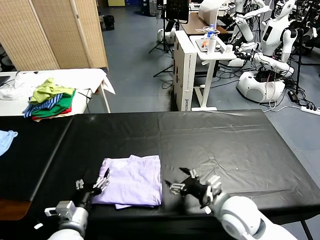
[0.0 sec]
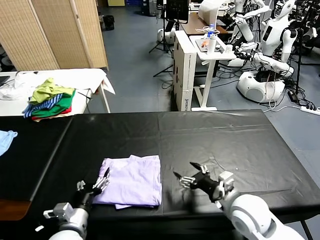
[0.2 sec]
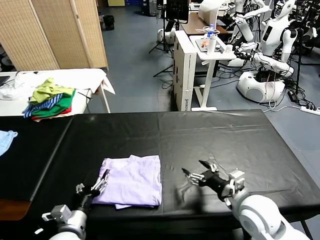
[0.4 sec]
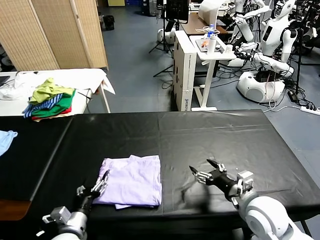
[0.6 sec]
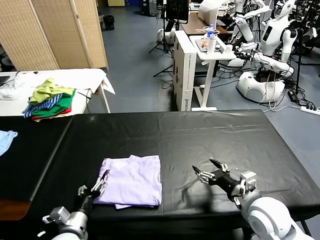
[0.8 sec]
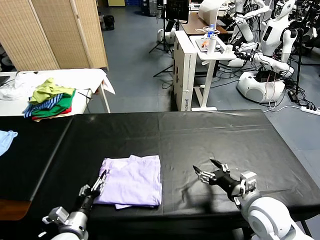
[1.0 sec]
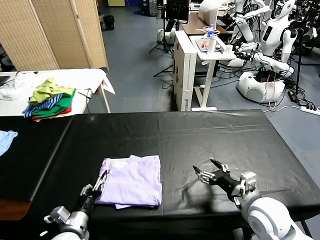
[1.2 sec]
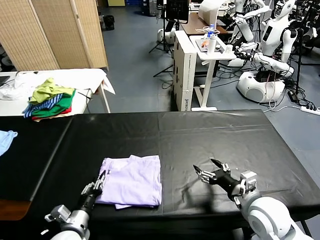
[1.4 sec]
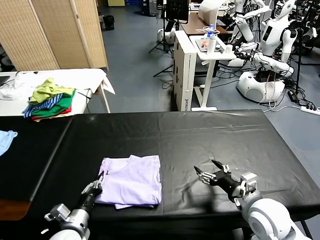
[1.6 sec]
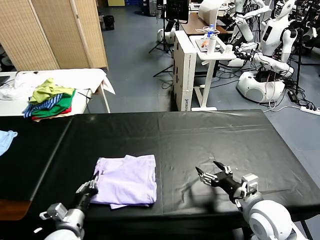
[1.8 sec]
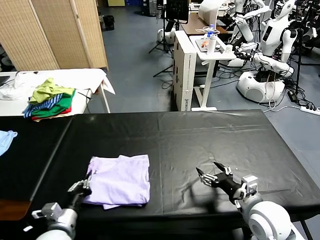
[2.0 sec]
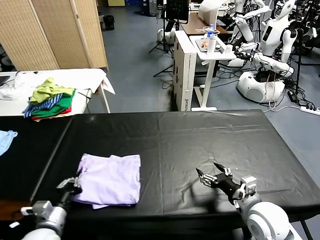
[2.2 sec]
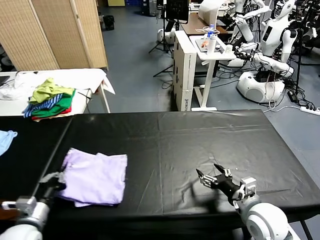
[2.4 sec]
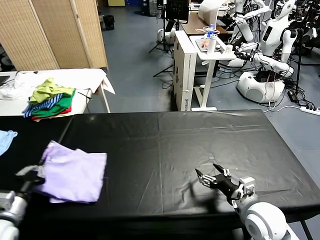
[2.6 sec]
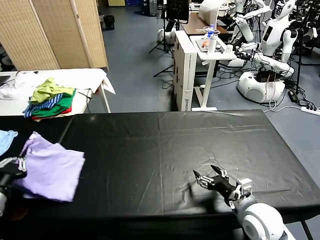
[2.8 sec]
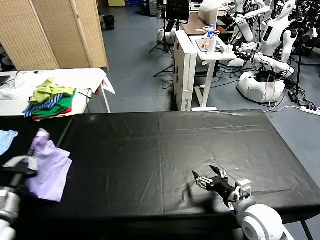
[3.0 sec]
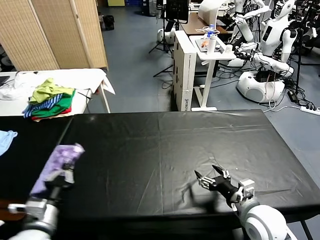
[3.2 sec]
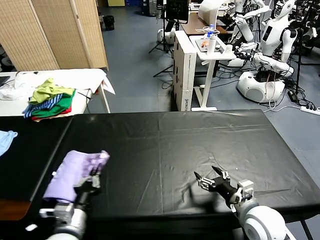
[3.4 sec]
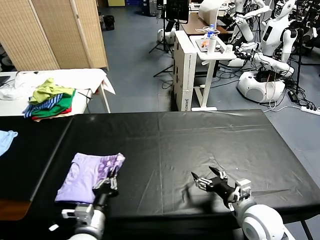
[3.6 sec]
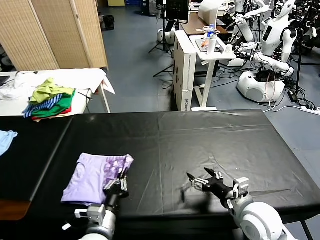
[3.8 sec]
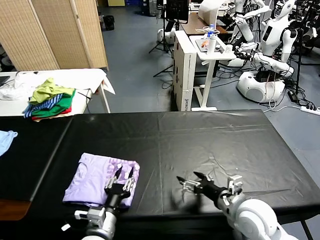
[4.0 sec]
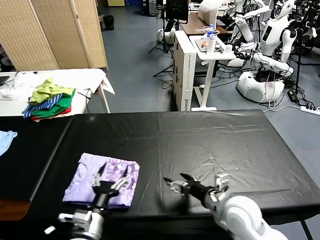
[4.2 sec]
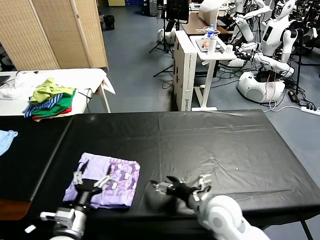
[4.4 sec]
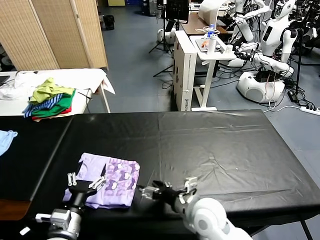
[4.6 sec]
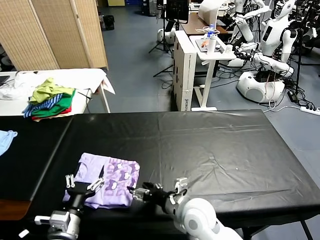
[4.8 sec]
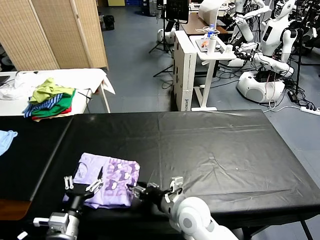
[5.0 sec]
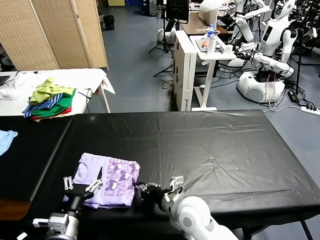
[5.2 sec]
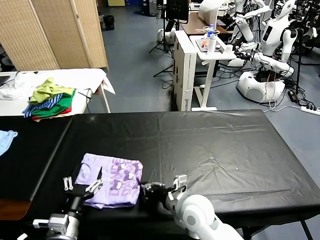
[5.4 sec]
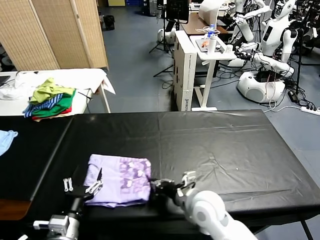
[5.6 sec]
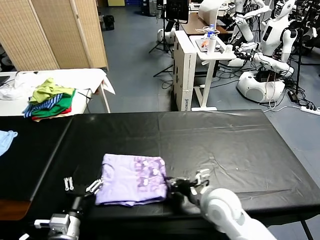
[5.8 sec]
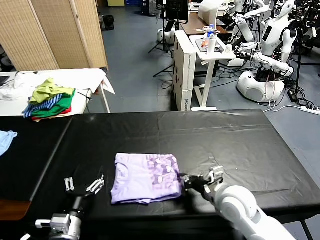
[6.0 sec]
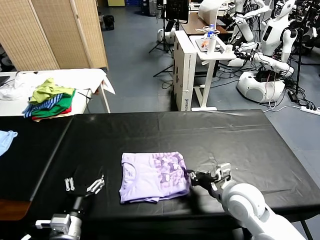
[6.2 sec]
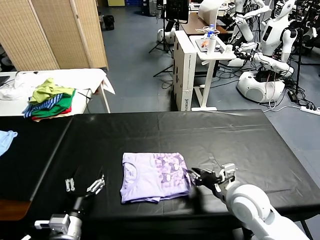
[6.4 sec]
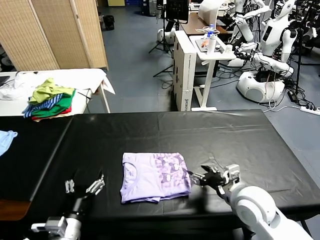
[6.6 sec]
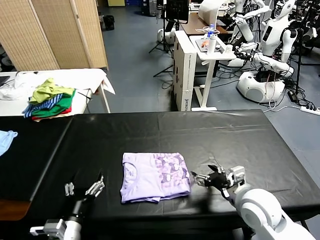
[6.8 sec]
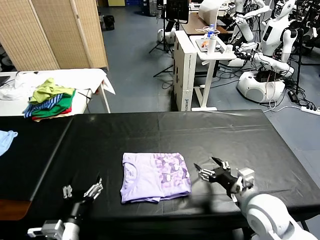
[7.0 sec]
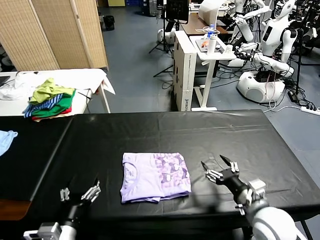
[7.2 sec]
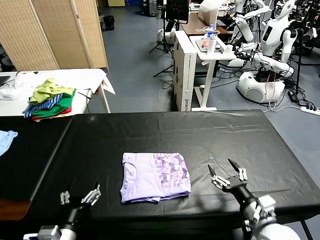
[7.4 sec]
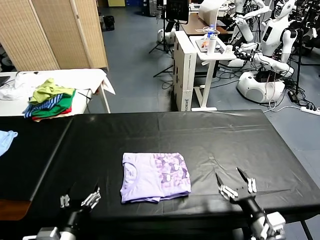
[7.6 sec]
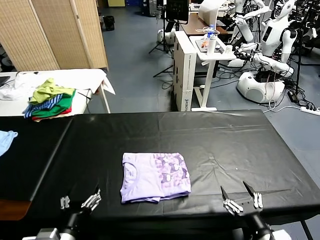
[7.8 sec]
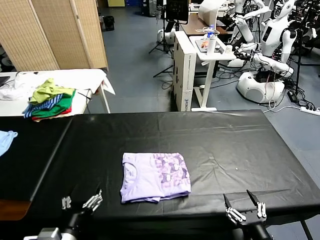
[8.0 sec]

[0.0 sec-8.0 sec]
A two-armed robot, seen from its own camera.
Task of the whole recording: fold and organize the clothes.
Step, 0.0 sec to 4.0 sec: Flip the folded clothes over with left gripper.
Step, 4.4 sec to 6.6 sec: Drag the clothes to the center of the table.
0.0 sec to 1.6 sec: The left gripper closes up, while the right gripper heads to the right, covering some 5 cm.
1.6 sec to 3.2 sec: The left gripper heads upward, covering about 10 cm.
3.2 sec to 4.8 sec: The right gripper is displaced to the left by some 15 cm; the left gripper is displaced to the right by some 5 cm, and opens.
4.8 sec to 6.4 sec: The right gripper shifts approximately 15 cm to the right, and closes its fingers.
6.4 sec to 8.0 sec: The right gripper moves backward, approximately 20 cm, and opens.
